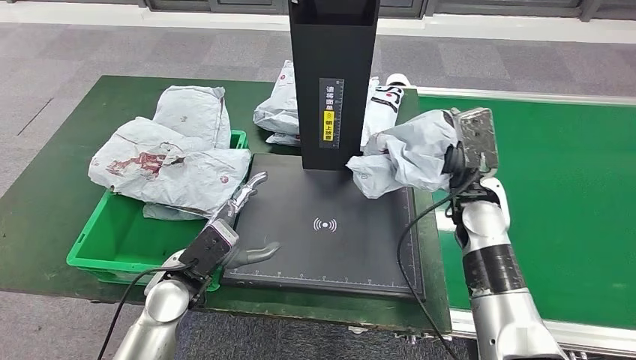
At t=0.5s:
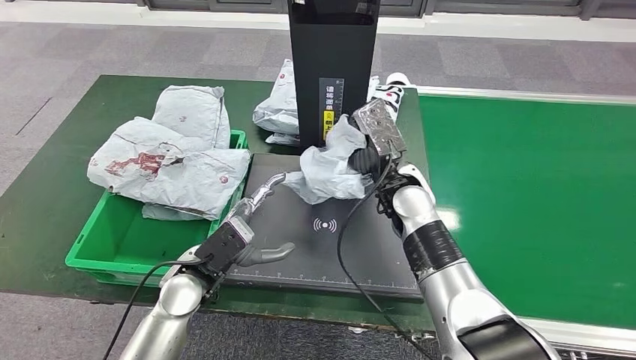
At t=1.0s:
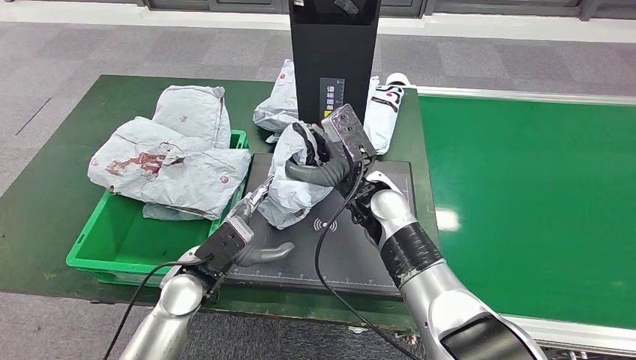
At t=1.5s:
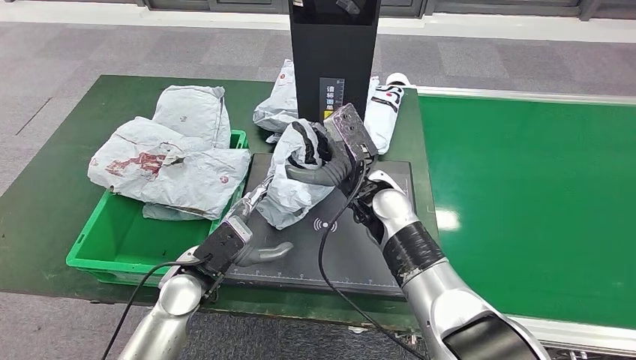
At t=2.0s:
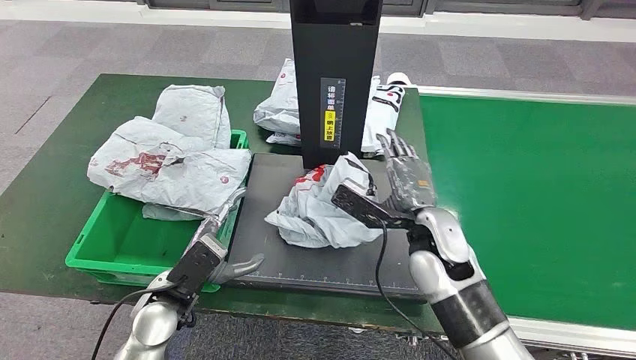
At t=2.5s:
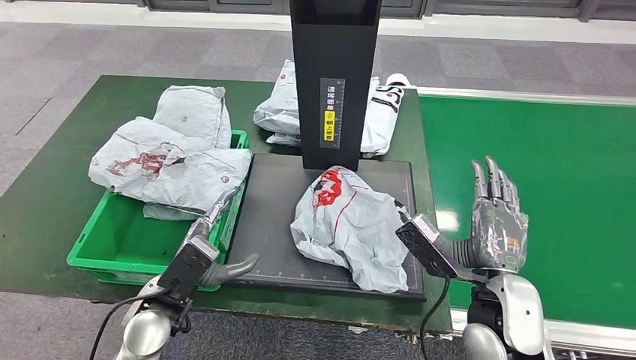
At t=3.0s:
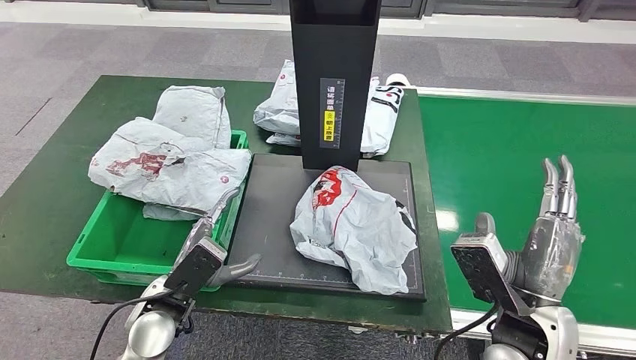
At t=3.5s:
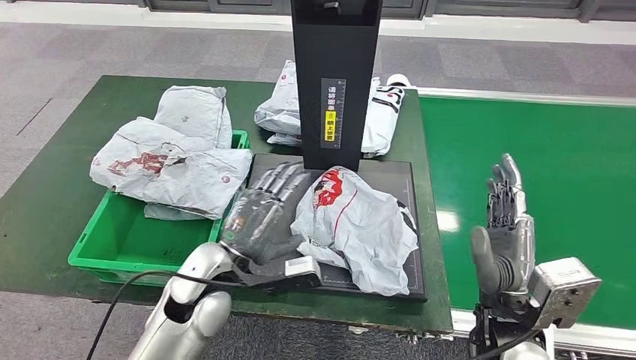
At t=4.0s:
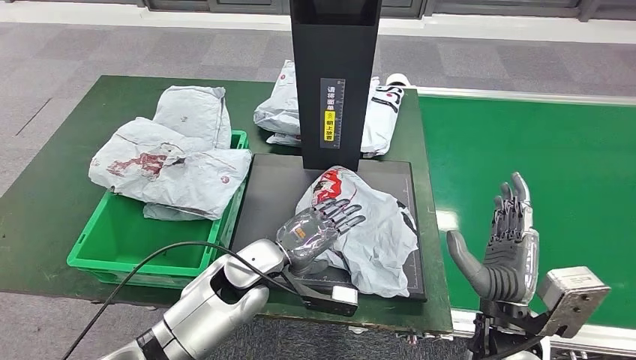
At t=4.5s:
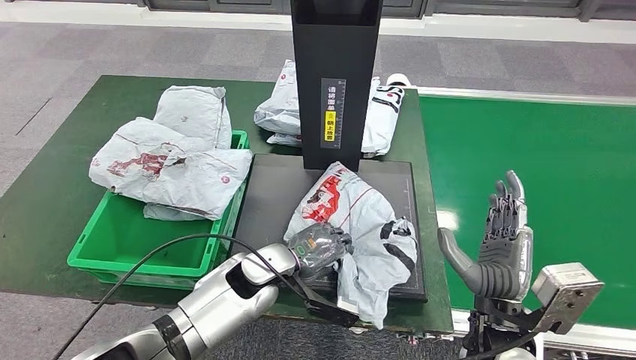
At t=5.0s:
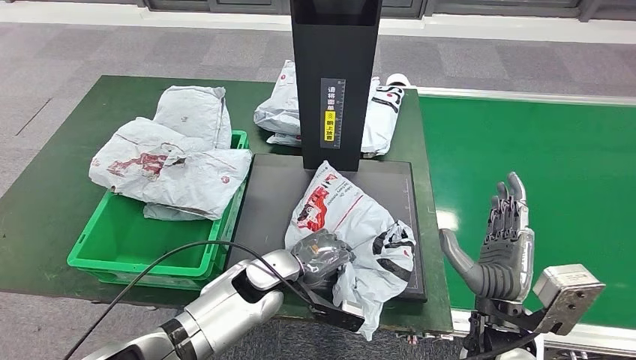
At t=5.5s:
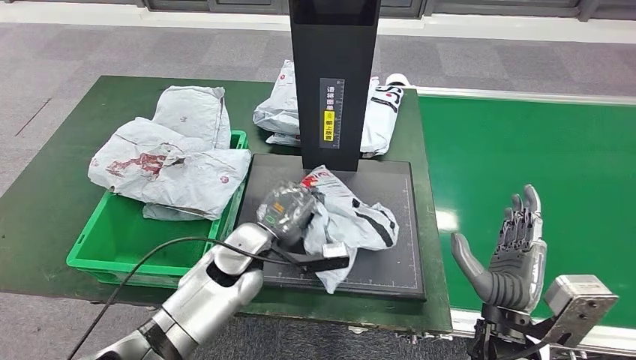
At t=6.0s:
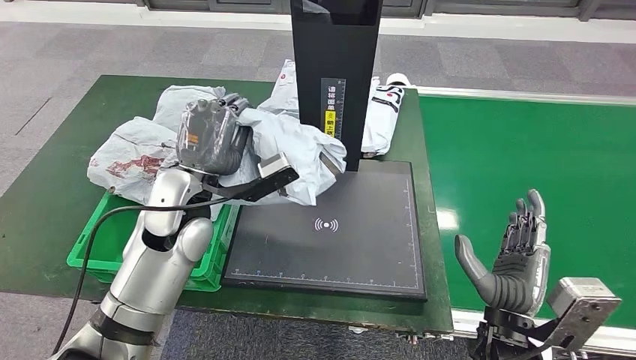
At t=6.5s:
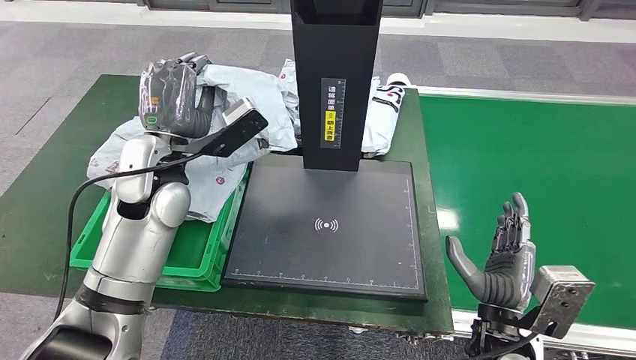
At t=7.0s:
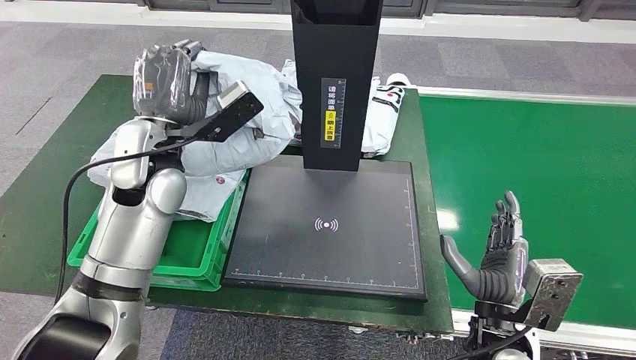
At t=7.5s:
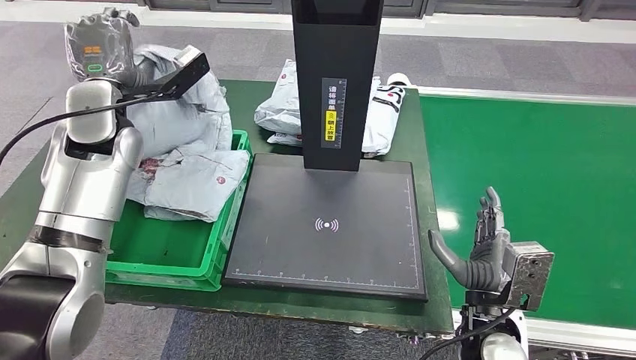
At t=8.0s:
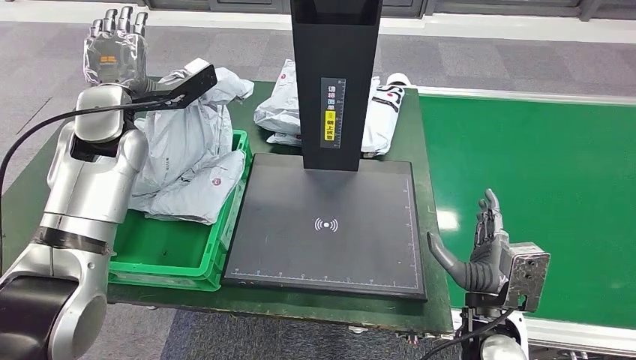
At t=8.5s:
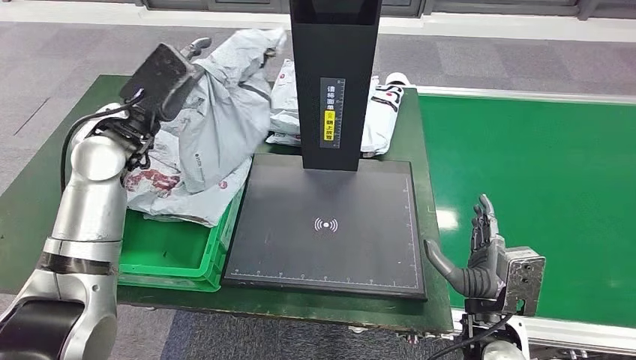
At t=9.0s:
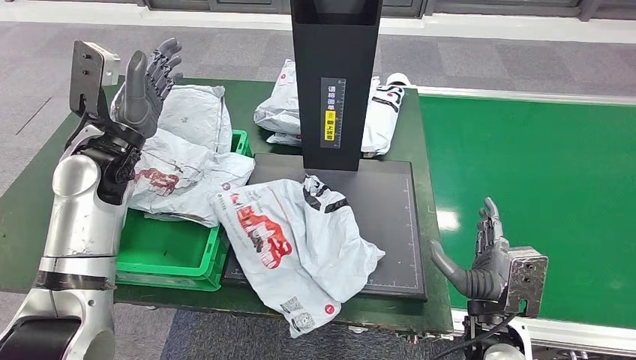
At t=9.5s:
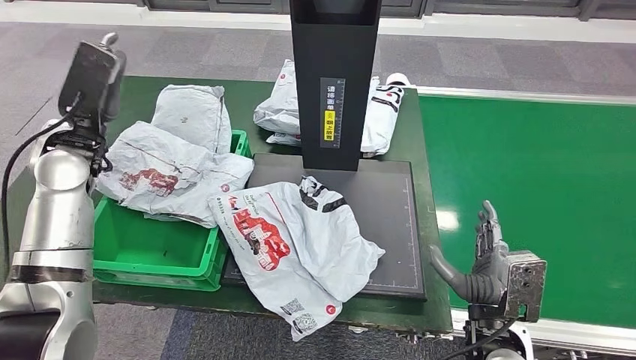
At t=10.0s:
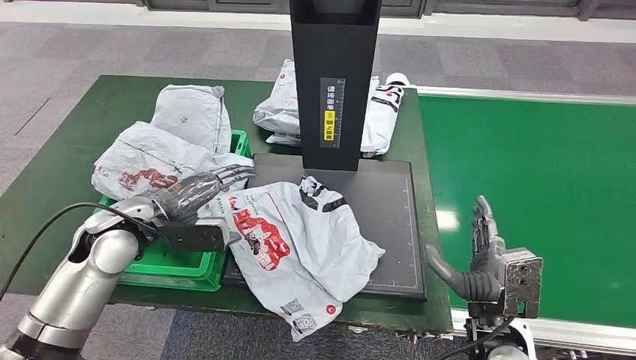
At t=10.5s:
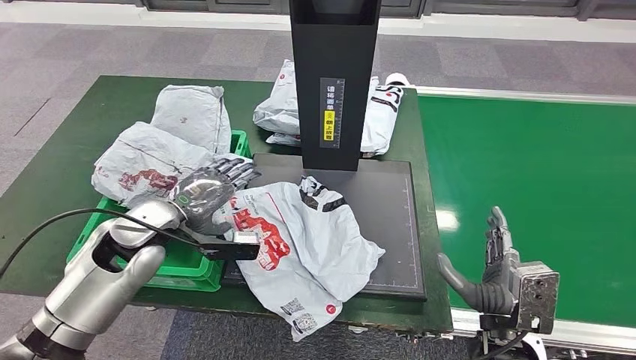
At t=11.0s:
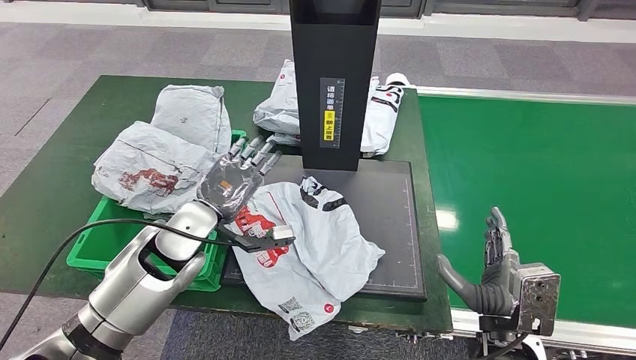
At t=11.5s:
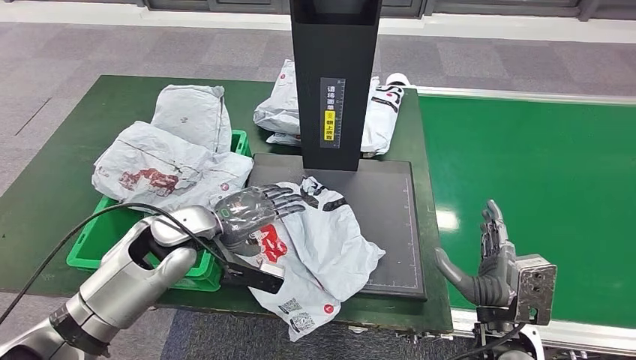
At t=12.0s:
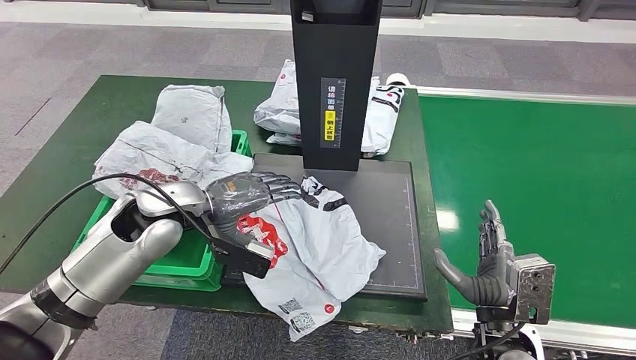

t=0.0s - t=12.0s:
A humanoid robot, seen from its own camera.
Step, t=0.0s - t=2.5s: Place the parcel onto the inbound machine.
Step, t=3.0s - t=6.5s: Pick up the parcel from the inbound machine.
t=10.0s - t=12.0s: The left hand is displaced to the right by about 5 cm.

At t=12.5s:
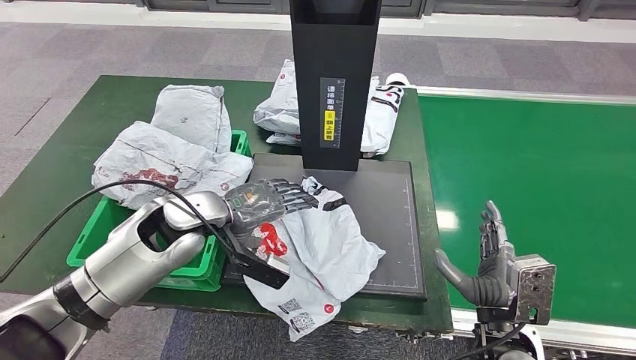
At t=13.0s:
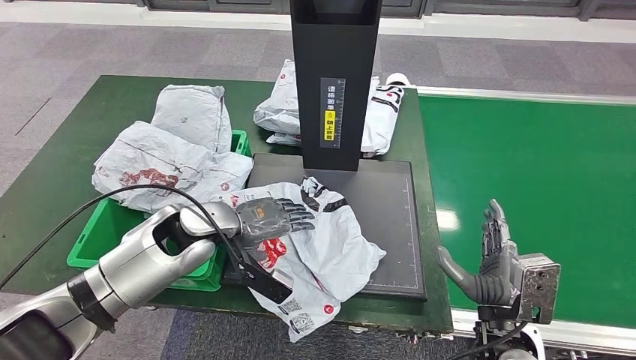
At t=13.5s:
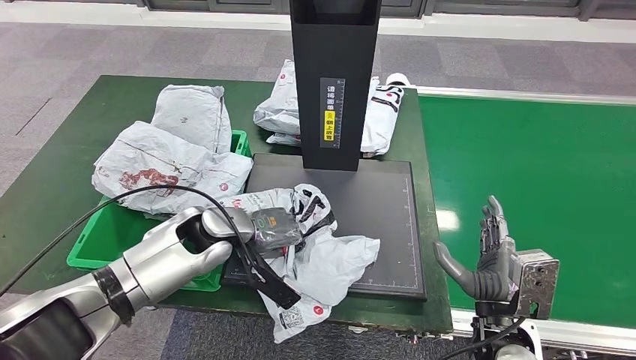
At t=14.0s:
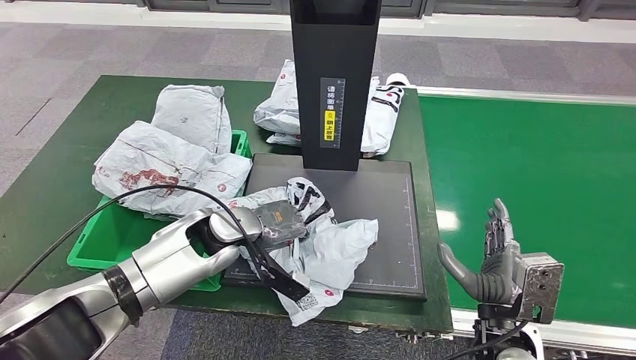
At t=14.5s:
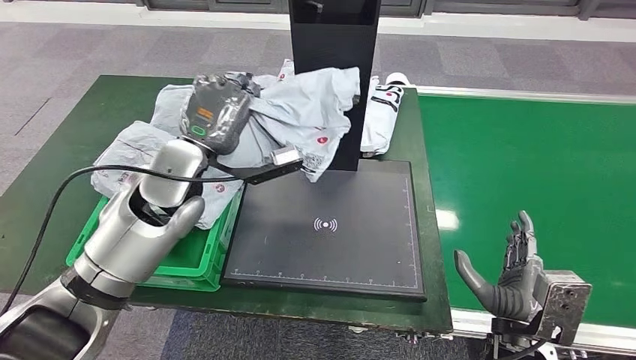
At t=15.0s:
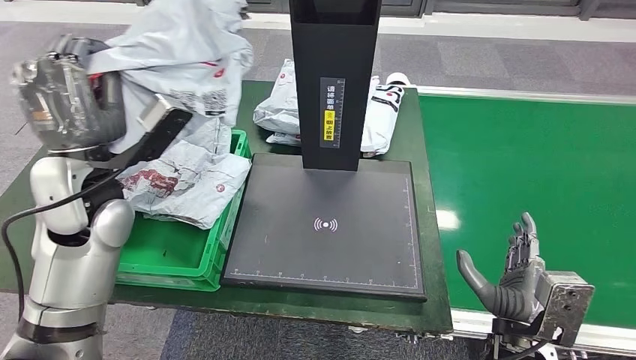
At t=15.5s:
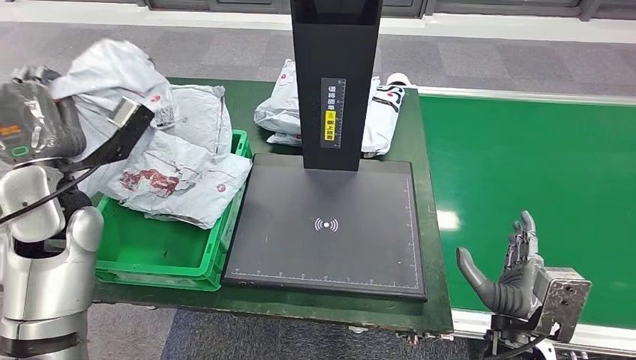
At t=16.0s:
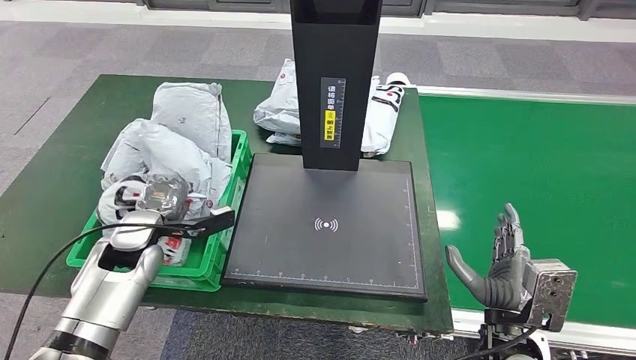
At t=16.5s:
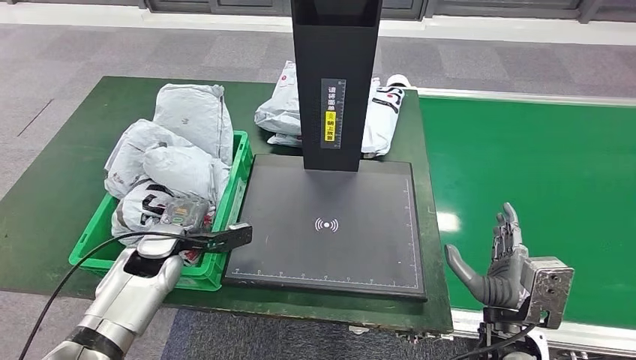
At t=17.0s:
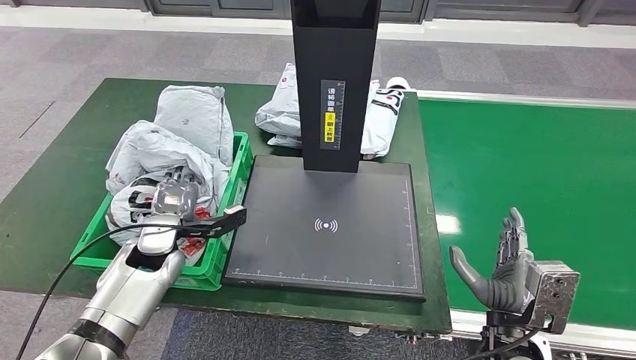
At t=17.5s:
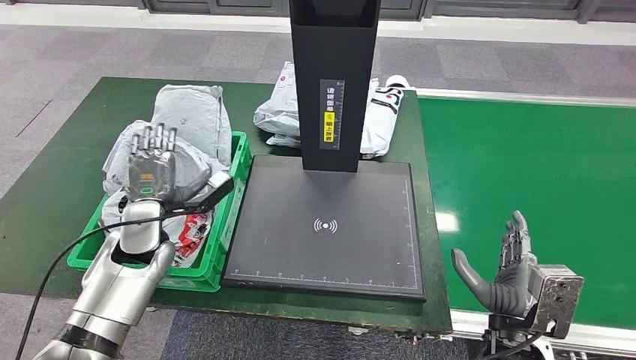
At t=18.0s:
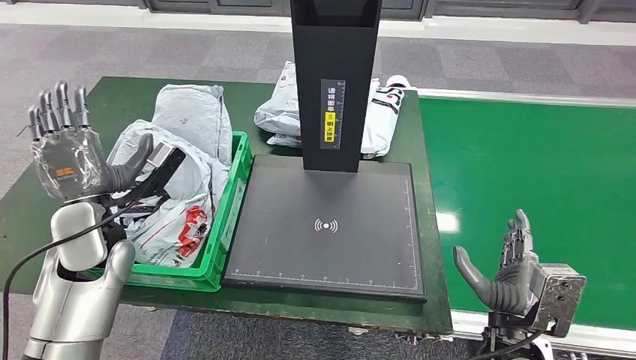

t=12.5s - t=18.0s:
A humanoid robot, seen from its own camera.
Step, t=12.5s - t=18.0s: Place the parcel into the delivery box.
